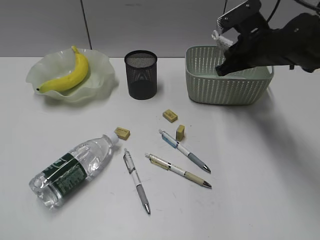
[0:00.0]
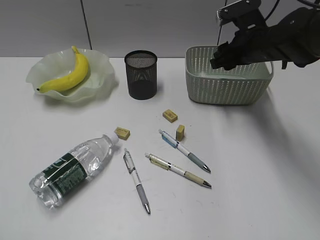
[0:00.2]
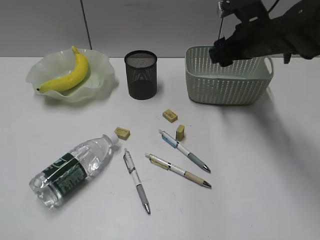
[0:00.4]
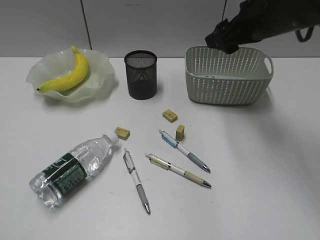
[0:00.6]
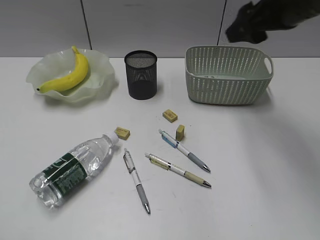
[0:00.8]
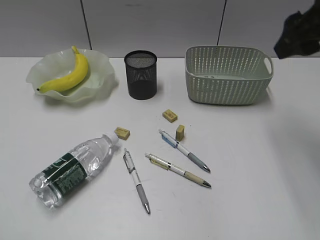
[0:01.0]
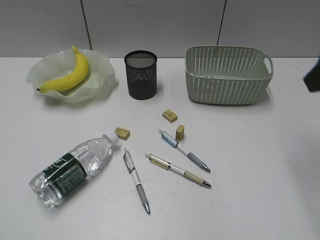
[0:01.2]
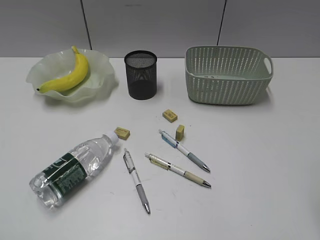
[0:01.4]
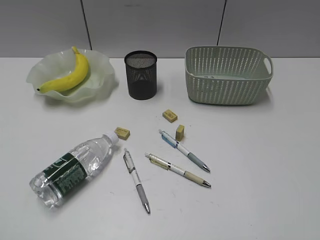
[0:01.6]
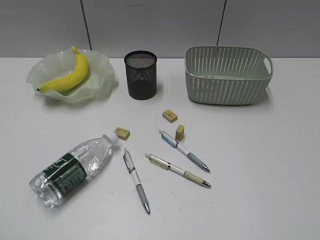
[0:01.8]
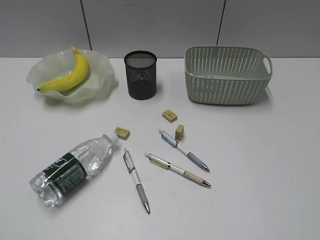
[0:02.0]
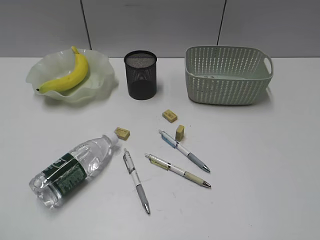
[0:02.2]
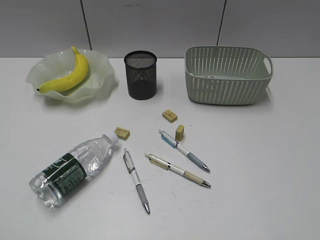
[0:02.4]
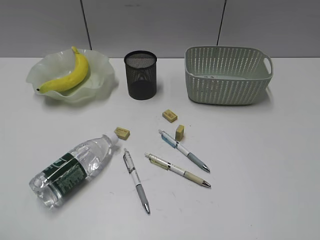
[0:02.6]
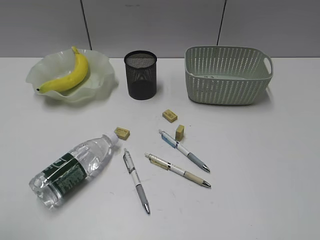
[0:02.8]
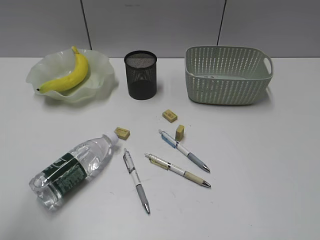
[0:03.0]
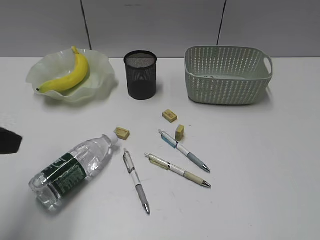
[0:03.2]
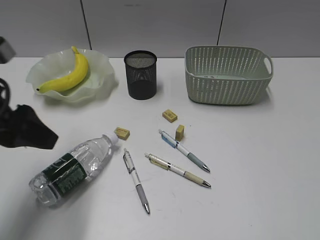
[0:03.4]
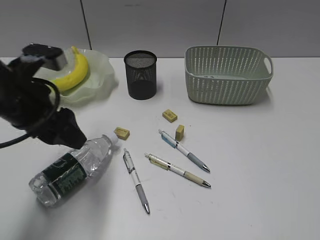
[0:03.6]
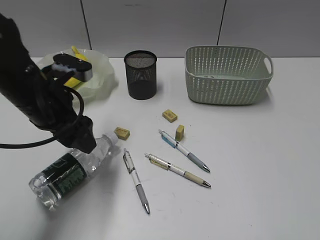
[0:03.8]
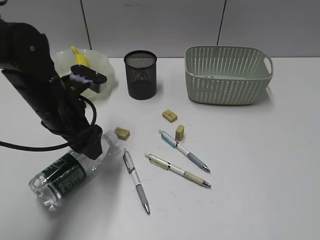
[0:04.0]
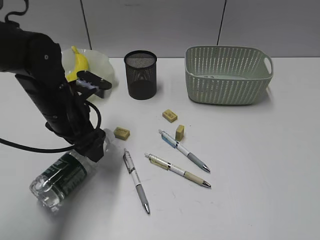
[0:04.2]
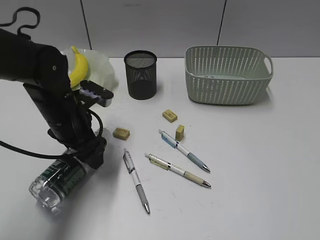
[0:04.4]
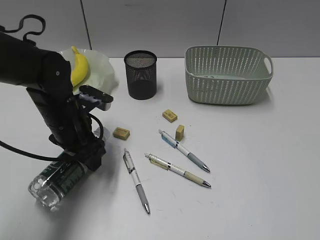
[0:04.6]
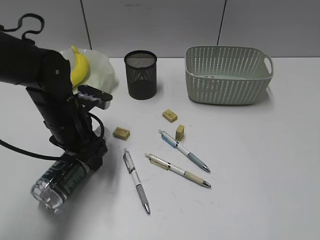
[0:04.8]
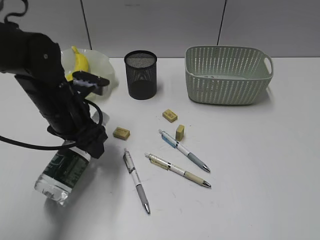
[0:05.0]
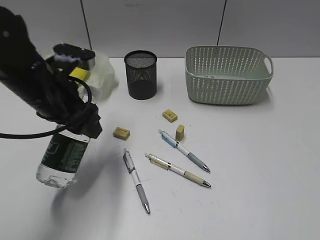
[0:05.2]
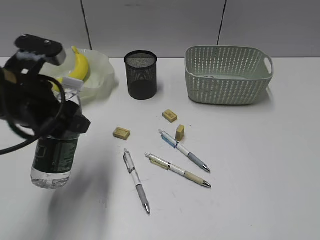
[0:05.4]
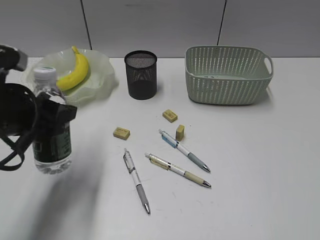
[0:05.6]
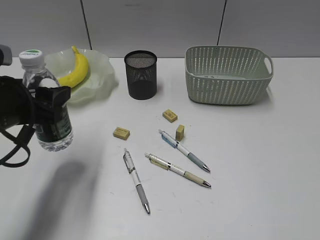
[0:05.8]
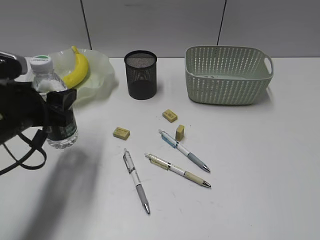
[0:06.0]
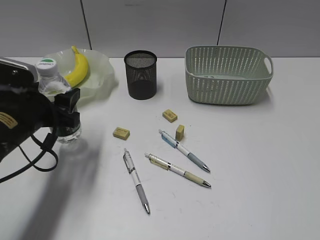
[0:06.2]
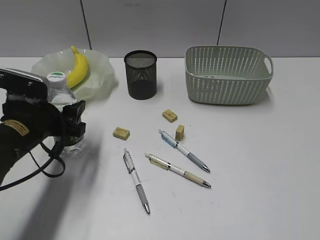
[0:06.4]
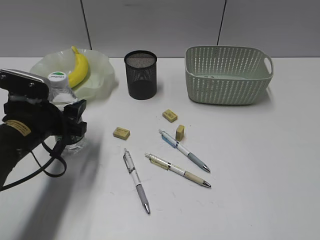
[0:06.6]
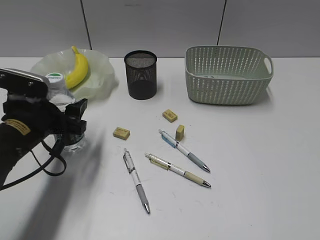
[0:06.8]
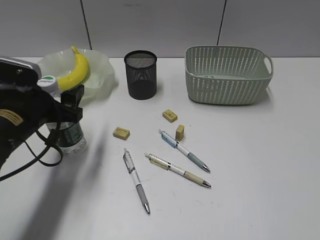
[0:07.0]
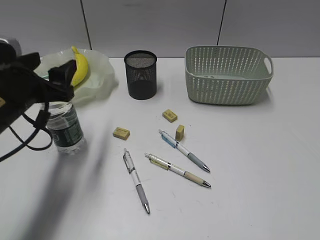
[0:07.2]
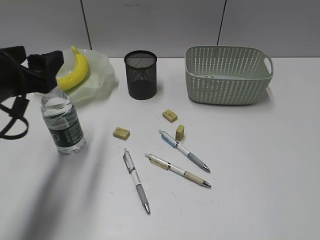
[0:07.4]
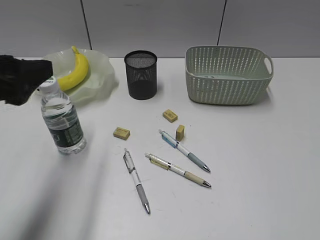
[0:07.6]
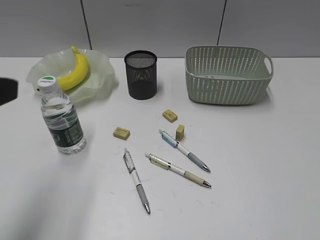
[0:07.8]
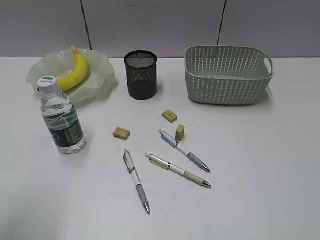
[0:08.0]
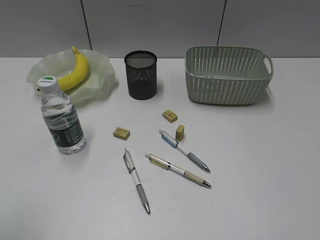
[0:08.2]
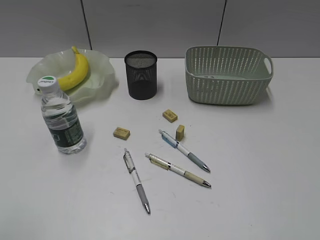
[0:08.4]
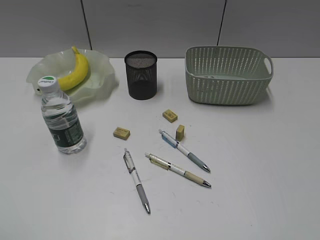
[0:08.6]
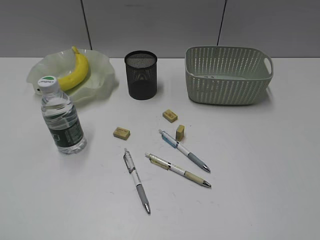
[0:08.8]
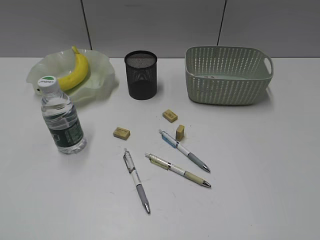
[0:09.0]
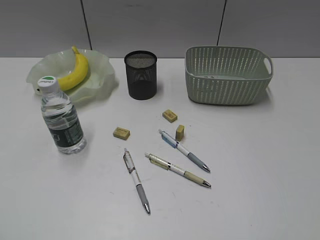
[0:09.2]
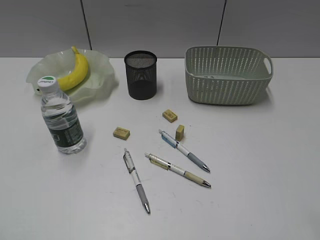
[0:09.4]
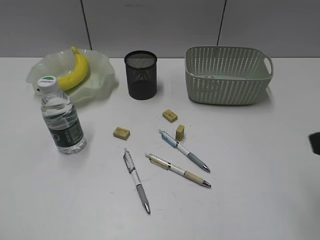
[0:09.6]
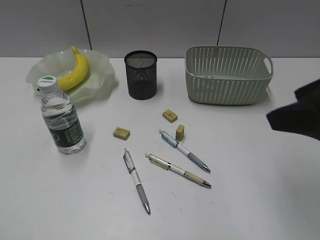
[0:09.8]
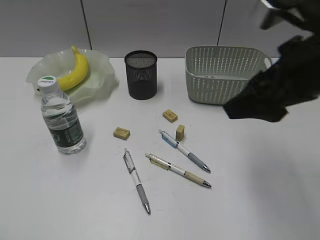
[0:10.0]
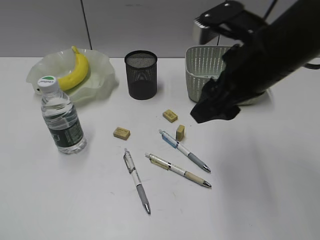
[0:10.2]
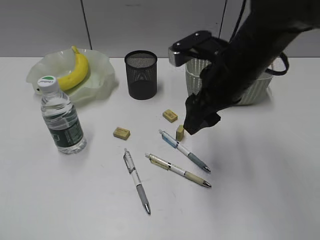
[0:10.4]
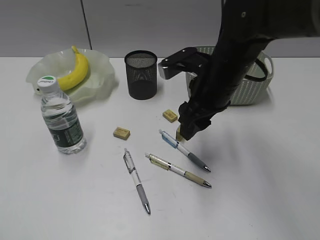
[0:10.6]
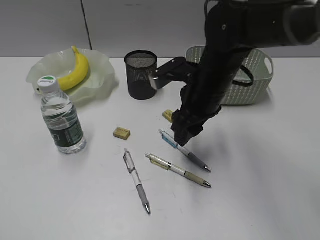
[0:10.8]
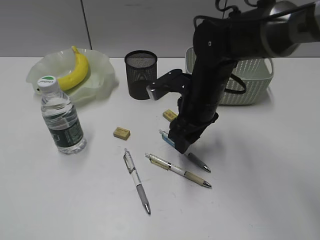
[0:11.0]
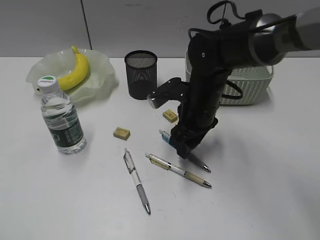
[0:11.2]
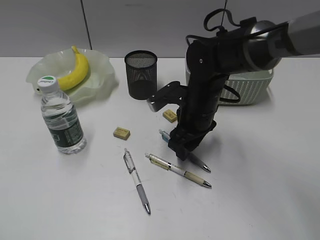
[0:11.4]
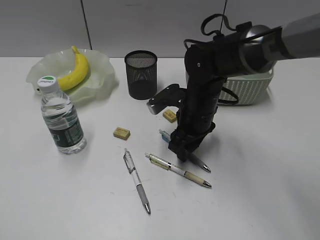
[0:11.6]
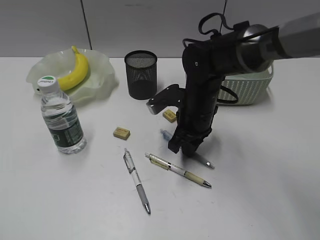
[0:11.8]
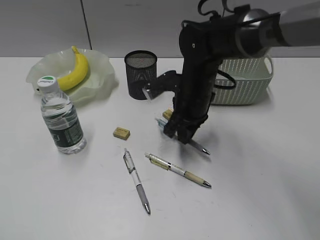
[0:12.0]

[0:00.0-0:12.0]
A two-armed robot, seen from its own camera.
Step, 0:00.4 to 0:04.6: Grasp the bottle with left gripper.
Step, 0:04.8 to 0:07.2: Stand the bottle with left gripper.
Step, 0:07.4 to 0:11.8: Grasp the blue pen with right gripper.
0:00.0 to 0:01.6: The right gripper heads backward, covering approximately 35 cm, and opens.
0:01.6 to 0:03.0: The left gripper moves forward, approximately 10 cm.
0:03.0 to 0:04.4: The left gripper goes about 30 cm forward, downward and to the right, and opens.
0:04.4 to 0:06.0: The left gripper goes some 10 cm backward and to the left.
0:06.0 to 0:07.6: The left gripper shifts some 10 cm upward and backward.
0:07.6 to 0:09.0: The left gripper travels backward and to the left by some 25 cm.
0:09.0 to 0:10.4: The right gripper goes about 35 cm forward and to the left.
0:10.4 to 0:12.0: The right gripper heads downward and forward, covering some 10 cm, and closes.

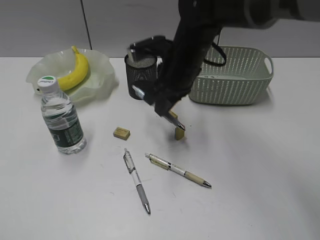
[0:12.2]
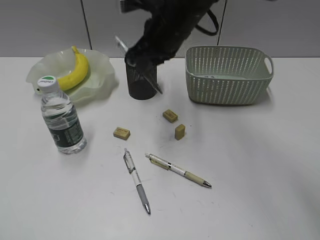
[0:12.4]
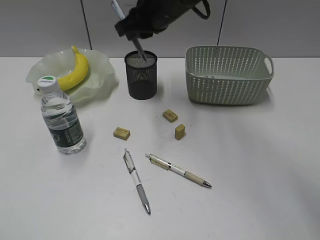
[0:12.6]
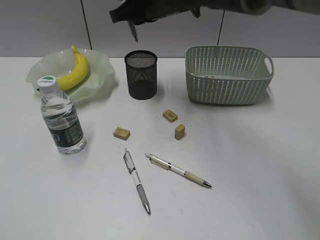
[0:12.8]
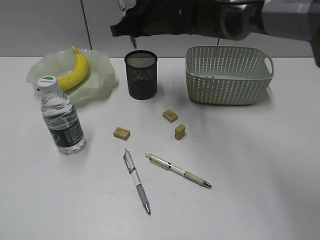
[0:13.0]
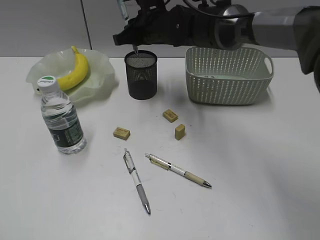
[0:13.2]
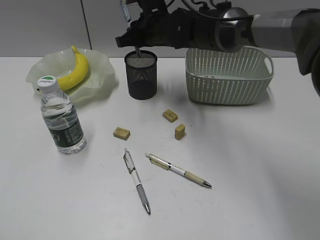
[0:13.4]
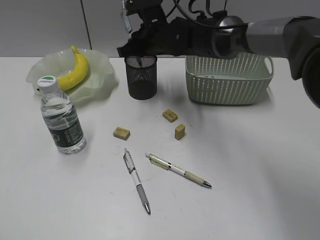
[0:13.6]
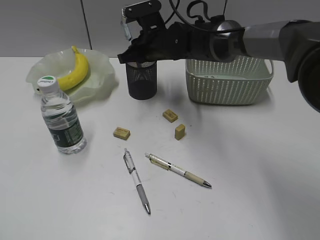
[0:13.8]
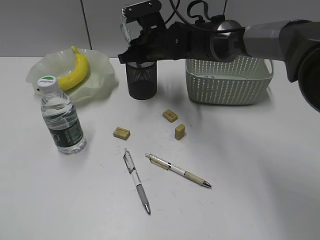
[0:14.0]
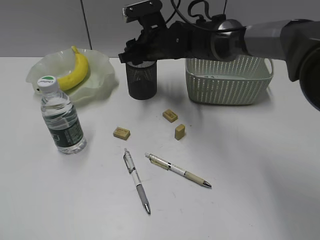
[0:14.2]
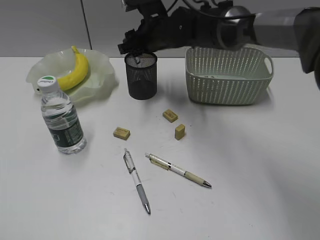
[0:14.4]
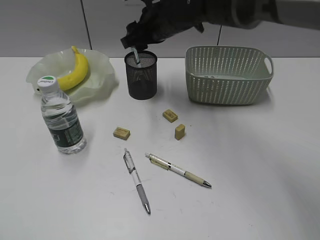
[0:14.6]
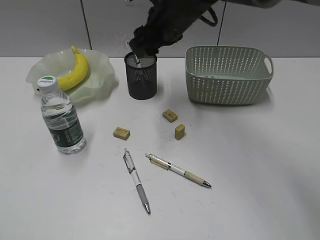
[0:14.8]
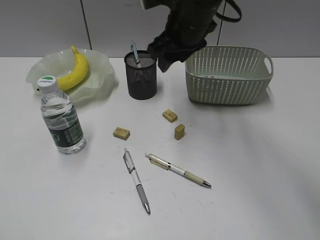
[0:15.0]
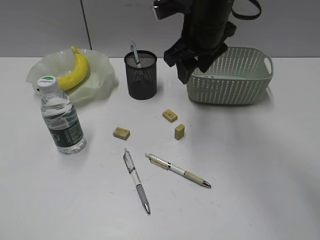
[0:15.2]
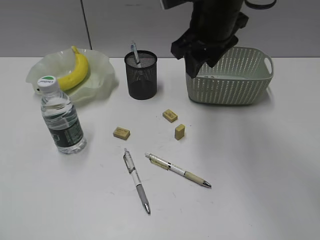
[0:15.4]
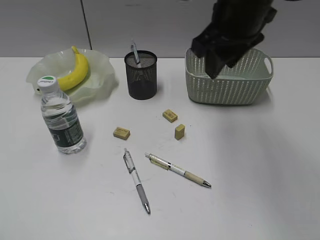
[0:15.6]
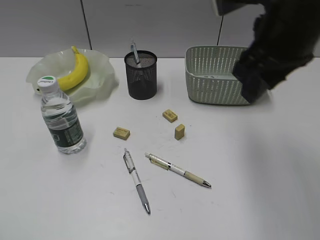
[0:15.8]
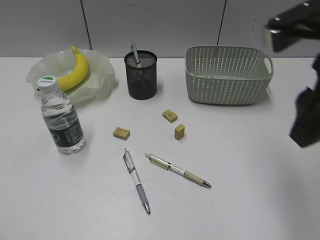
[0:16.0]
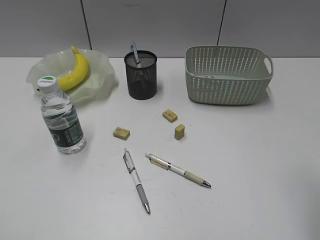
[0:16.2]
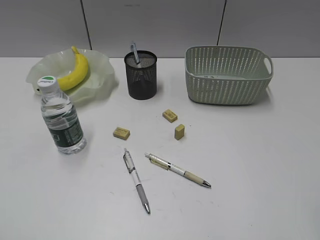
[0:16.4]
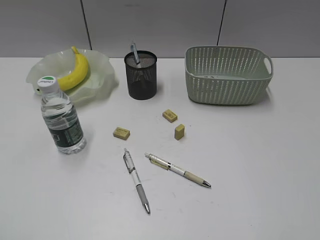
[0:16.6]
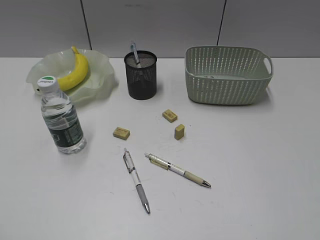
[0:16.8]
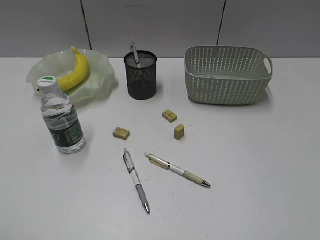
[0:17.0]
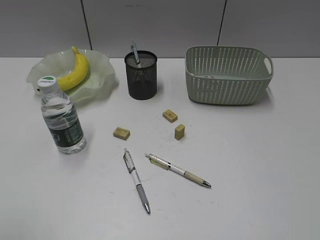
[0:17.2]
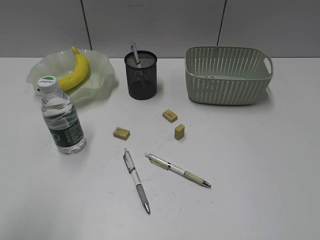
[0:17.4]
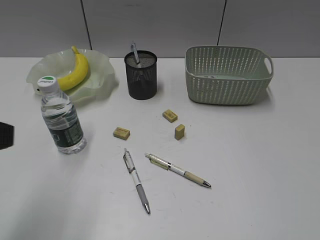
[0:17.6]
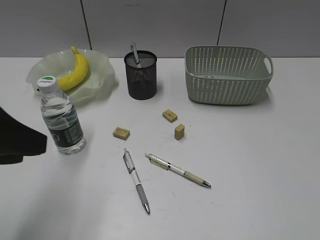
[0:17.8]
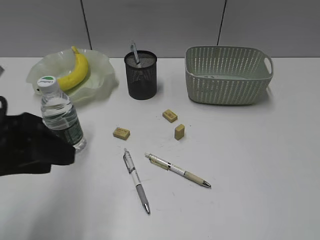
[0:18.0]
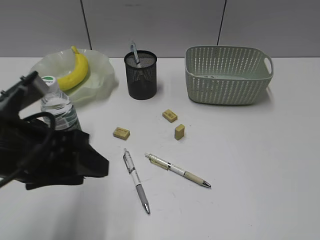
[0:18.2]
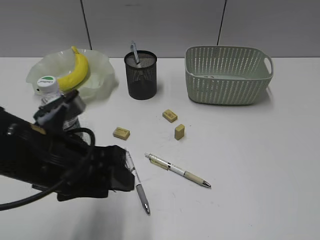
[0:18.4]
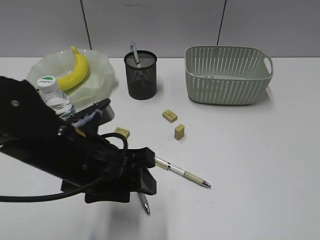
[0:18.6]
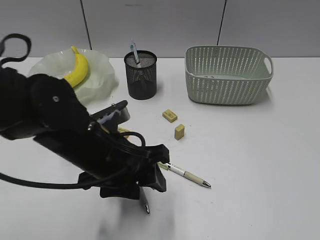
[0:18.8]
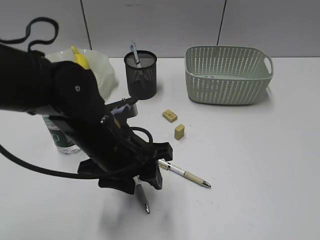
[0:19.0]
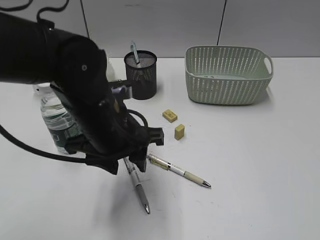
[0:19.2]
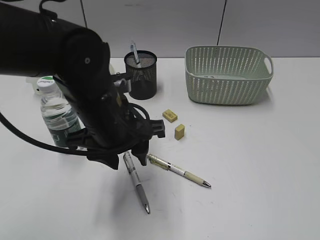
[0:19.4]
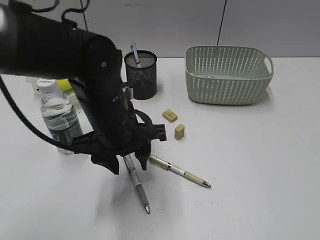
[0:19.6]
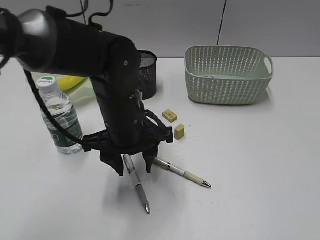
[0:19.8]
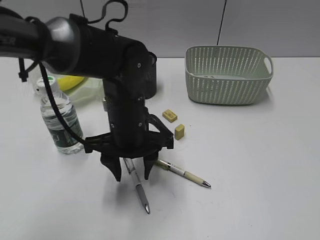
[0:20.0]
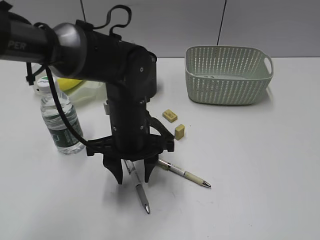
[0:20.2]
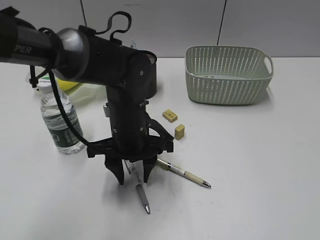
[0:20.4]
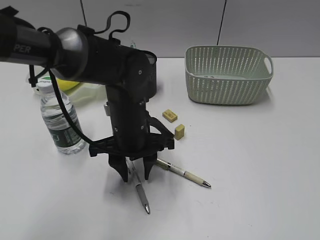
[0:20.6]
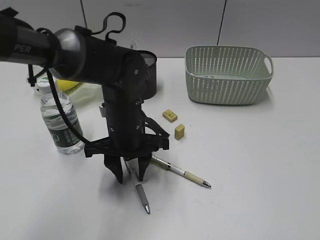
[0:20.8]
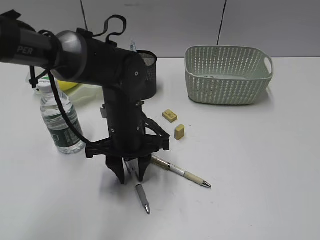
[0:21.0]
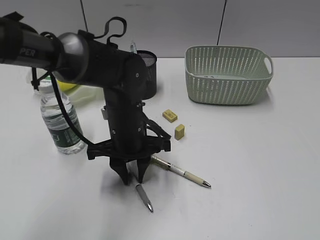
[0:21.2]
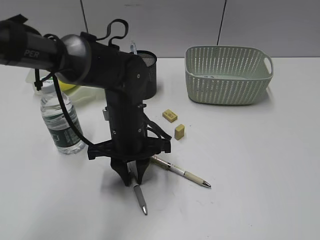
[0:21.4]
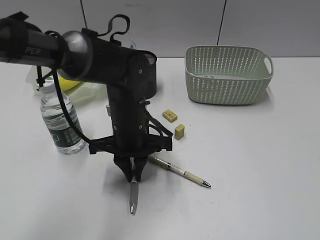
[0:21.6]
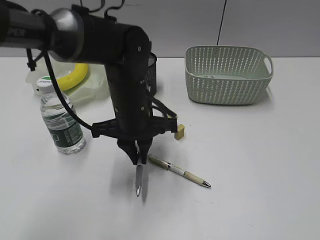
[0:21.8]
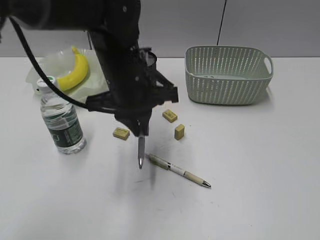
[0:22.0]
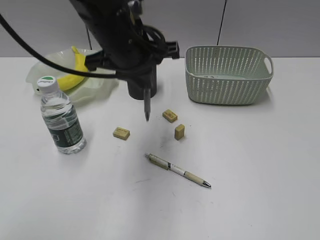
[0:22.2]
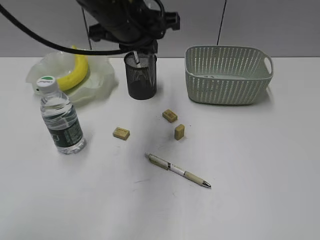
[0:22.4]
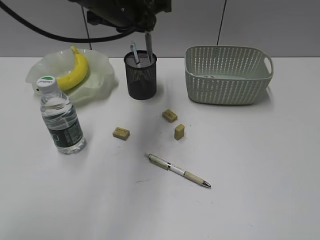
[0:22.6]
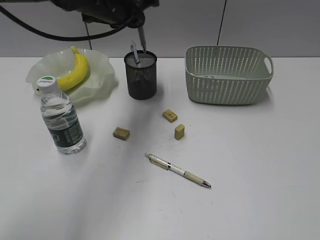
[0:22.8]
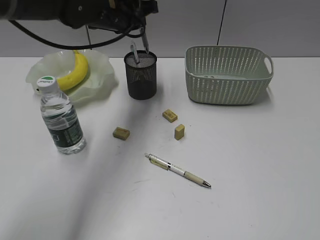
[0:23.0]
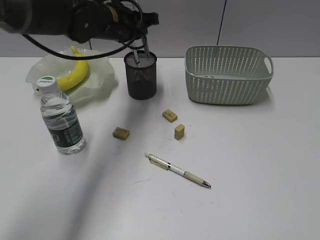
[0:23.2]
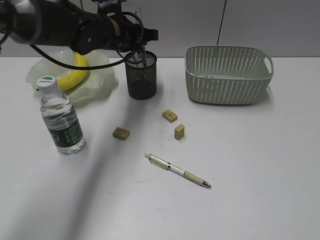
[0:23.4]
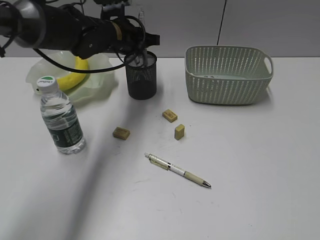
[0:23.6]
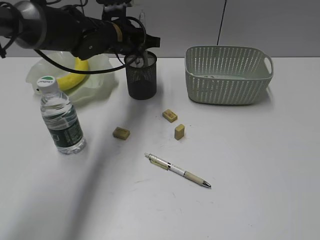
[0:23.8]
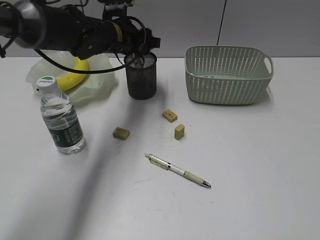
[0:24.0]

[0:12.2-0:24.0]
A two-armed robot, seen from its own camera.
Step, 0:12.2 to 0:14.2: Place the blue pen in pen holder with right gripper.
Step, 0:14.4 to 0:21.4: Grasp the gray pen with left gripper.
0:12.2 to 0:13.6: The right gripper shifts roughly 10 cm forward, and travels upward and back again, approximately 5 cm each way.
0:13.6 to 0:15.2: The right gripper moves upward, backward and to the right, some 15 cm, and opens.
0:15.2 to 0:16.6: The right gripper is displaced backward and to the right by roughly 40 cm.
0:16.6 to 0:18.2: The left gripper heads forward, to the right and downward, covering some 25 cm. The right gripper shifts approximately 5 cm backward.
0:18.2 to 0:19.6: The left gripper travels to the right and forward by some 15 cm.
0:19.6 to 0:21.0: The left gripper goes roughly 5 cm downward.
0:21.0 to 0:22.6: The left gripper is displaced upward and forward by approximately 20 cm, and closes its fingers.
0:22.6 to 0:24.0: The left gripper goes approximately 10 cm downward and forward, and opens its fingers.
